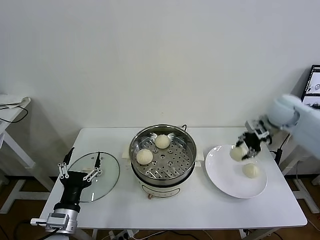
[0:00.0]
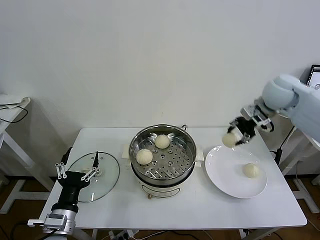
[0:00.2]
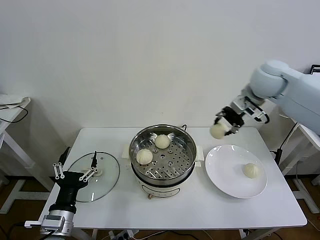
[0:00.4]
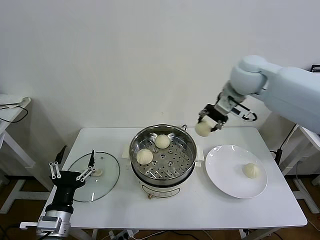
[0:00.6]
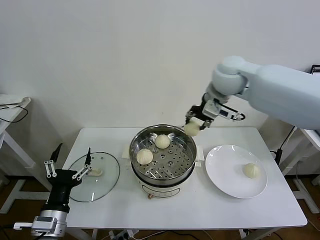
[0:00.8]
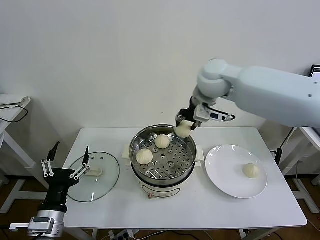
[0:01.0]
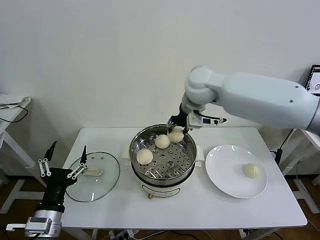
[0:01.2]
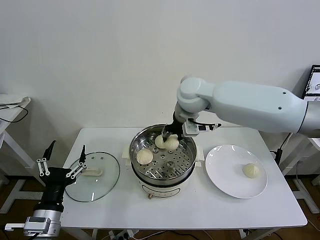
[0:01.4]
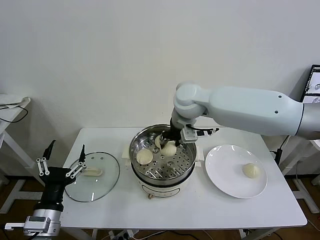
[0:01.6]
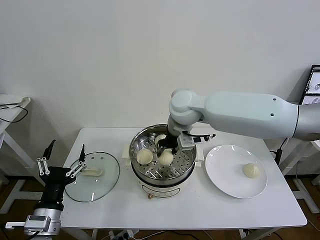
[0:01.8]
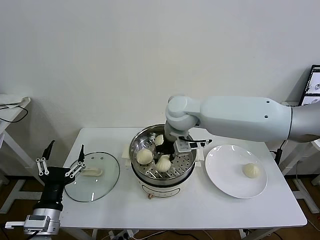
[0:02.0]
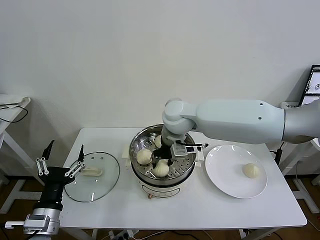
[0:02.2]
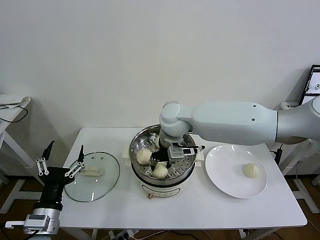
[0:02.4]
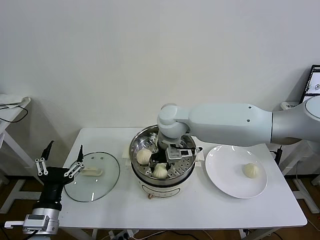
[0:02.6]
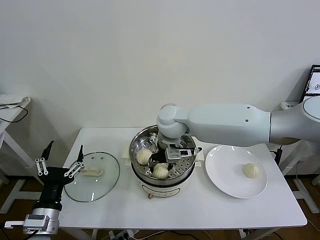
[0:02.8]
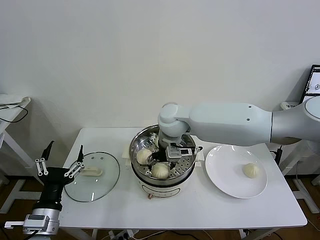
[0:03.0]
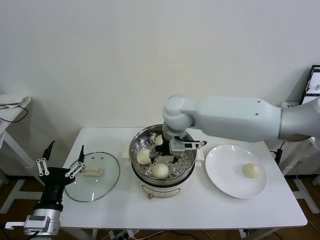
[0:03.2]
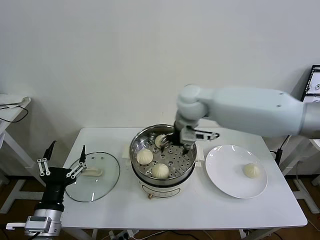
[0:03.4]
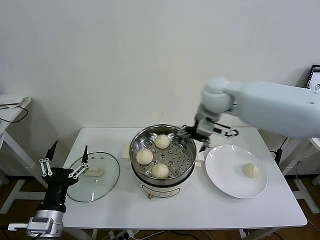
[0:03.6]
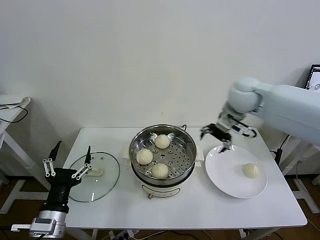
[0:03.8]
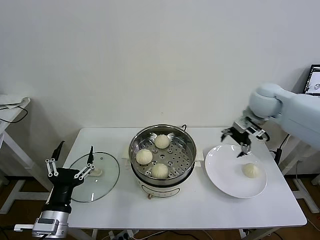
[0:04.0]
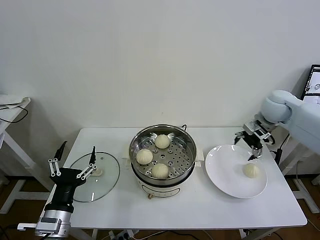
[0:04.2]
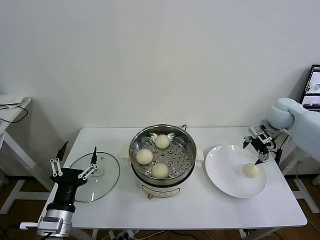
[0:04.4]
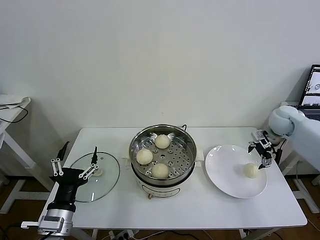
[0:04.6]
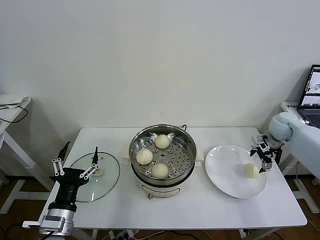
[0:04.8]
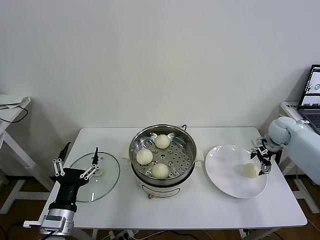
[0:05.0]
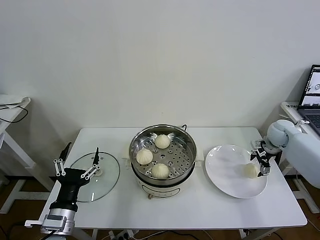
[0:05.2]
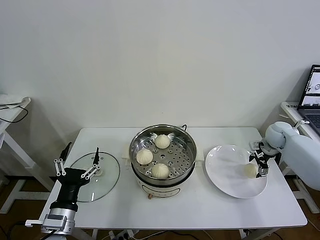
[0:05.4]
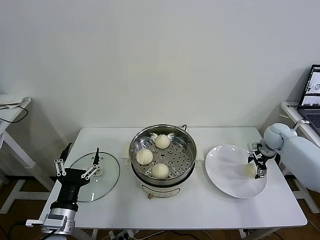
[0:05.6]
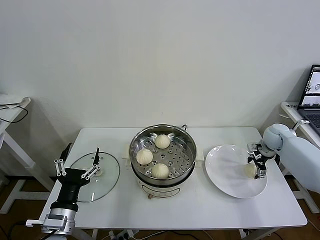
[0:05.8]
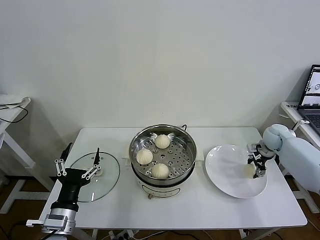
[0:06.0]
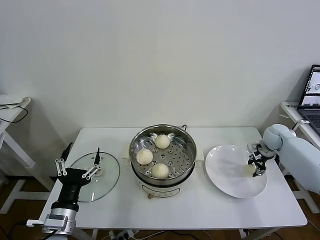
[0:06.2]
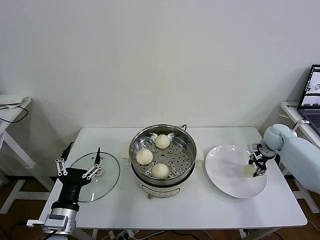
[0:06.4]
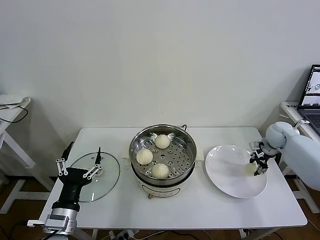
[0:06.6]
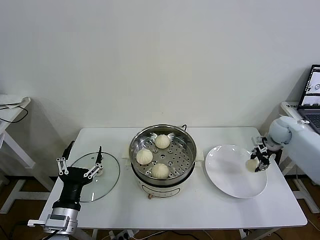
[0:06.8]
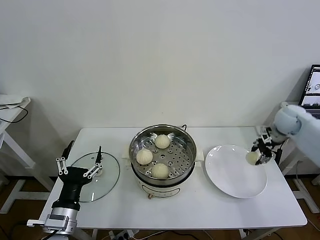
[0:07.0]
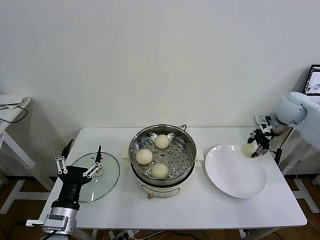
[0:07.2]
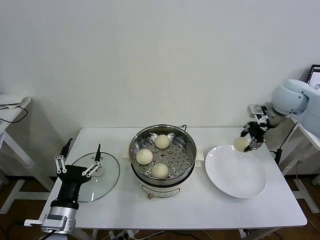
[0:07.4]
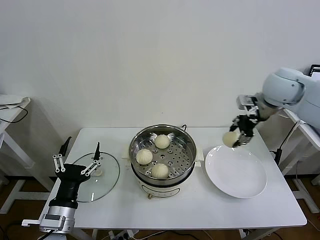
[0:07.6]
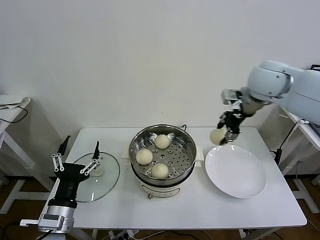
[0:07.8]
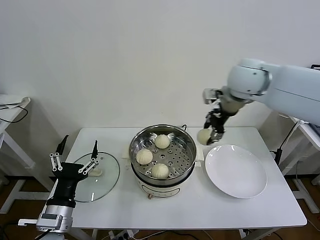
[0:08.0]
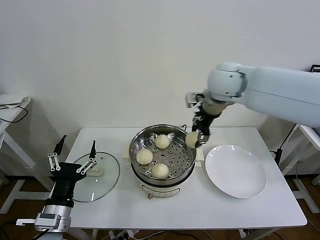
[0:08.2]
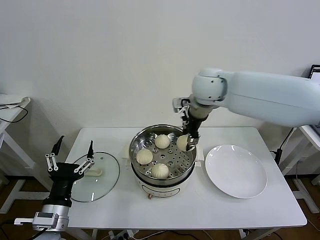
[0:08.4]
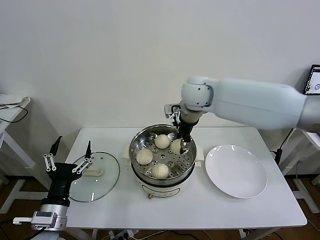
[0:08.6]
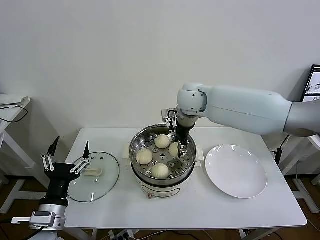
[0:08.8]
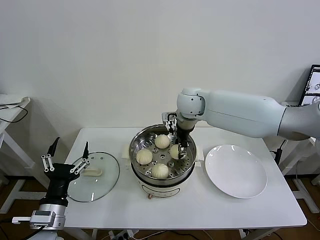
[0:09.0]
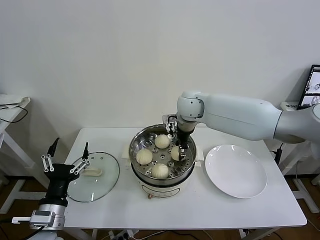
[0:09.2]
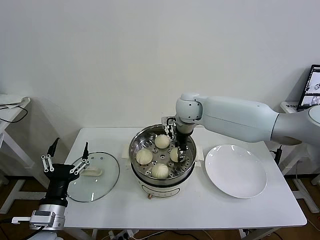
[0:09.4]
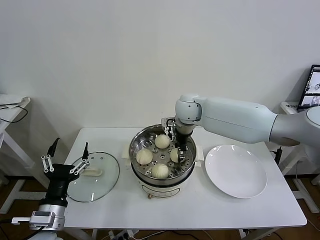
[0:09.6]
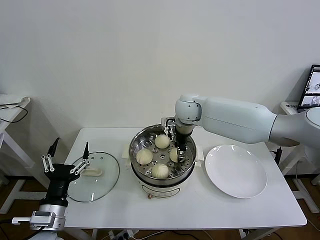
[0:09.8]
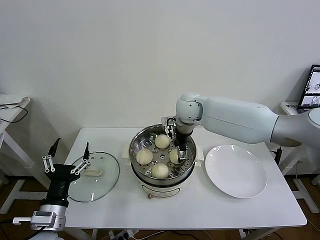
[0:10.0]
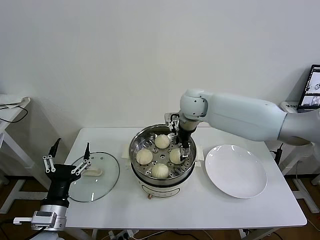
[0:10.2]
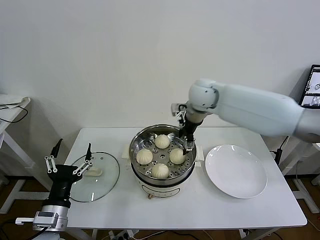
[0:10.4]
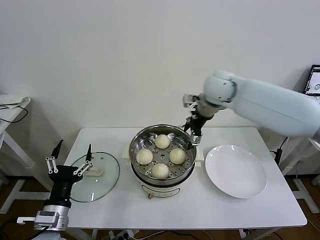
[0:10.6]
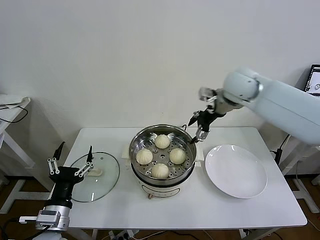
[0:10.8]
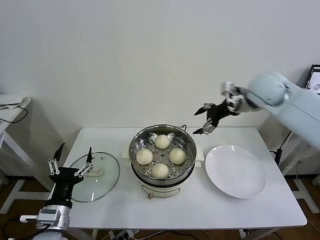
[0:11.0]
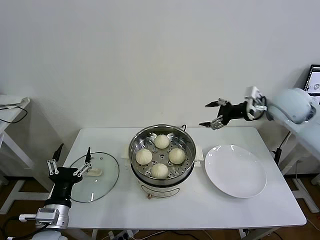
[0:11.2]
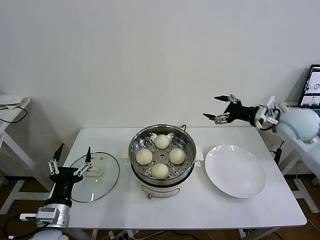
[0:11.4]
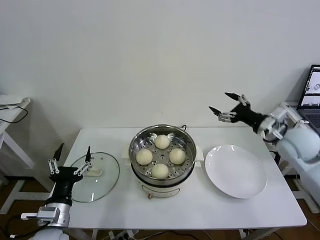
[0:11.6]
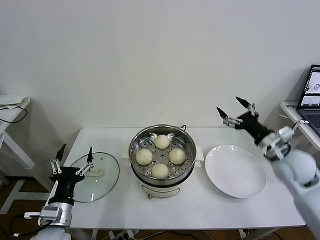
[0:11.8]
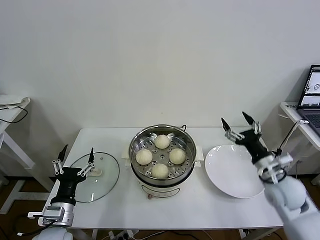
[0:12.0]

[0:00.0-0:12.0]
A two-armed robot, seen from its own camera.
Task of the whole recording: take steamed baozi put them in steamer then cover it.
Step, 0:00.0 to 0:03.0: Place the baozi on the steamer with right gripper.
Step, 0:03.2 to 0:06.2: Grasp the baozi in the plate with right gripper.
Step, 0:06.4 to 0:10.2: Place the baozi on the steamer with right gripper.
0:00.0 to 0:01.6: The right gripper goes approximately 30 cm to the left.
0:01.6 to 0:03.0: The right gripper travels downward by some 5 cm, and opens.
0:03.0 to 0:04.4: The right gripper heads to the right, covering approximately 40 cm.
0:04.4 to 0:06.0: The right gripper goes roughly 10 cm downward, and closes.
0:06.0 to 0:07.6: The right gripper heads upward and to the left, covering roughly 30 cm.
0:07.6 to 0:09.0: The right gripper heads to the left, covering about 25 cm.
0:09.0 to 0:10.4: The right gripper opens.
0:10.4 to 0:12.0: The left gripper moves approximately 5 cm; the right gripper heads backward, to the right and downward, covering roughly 35 cm.

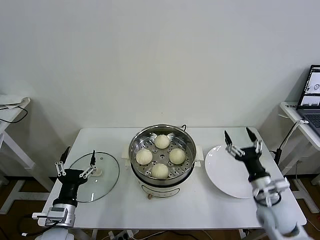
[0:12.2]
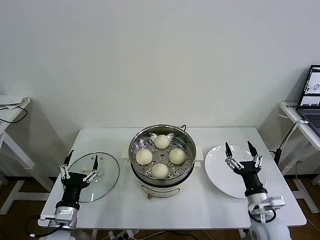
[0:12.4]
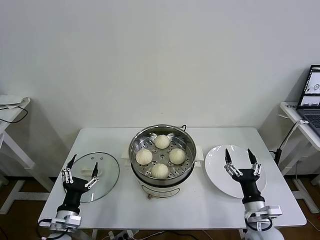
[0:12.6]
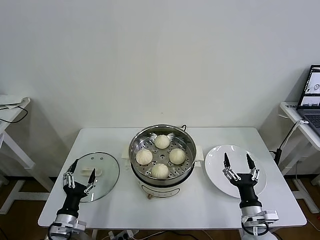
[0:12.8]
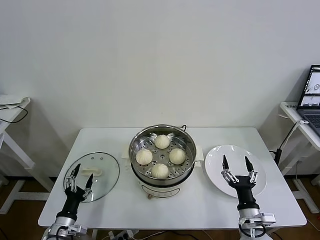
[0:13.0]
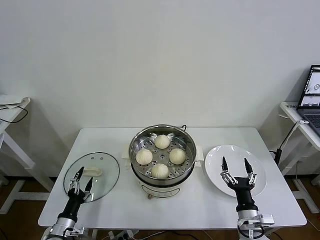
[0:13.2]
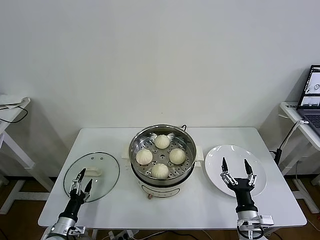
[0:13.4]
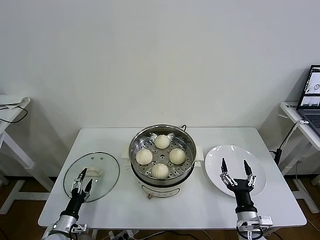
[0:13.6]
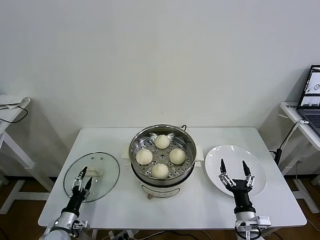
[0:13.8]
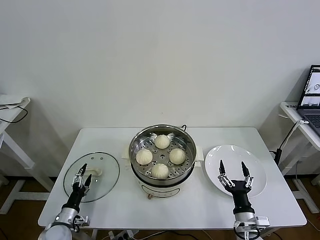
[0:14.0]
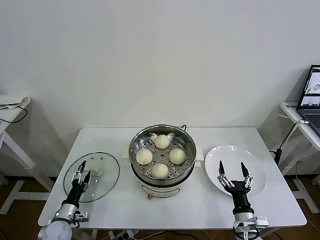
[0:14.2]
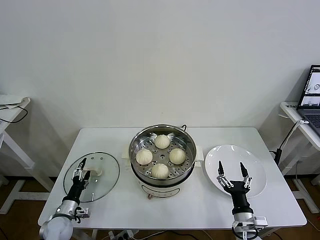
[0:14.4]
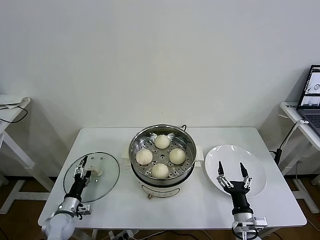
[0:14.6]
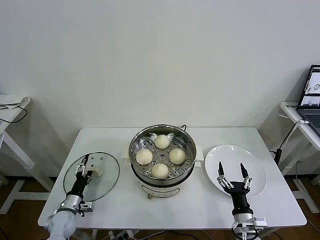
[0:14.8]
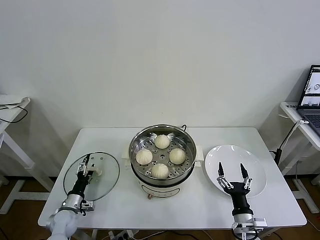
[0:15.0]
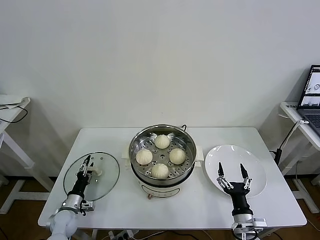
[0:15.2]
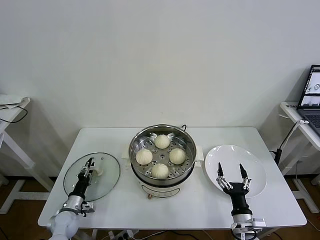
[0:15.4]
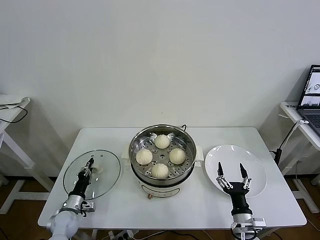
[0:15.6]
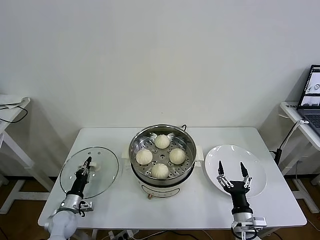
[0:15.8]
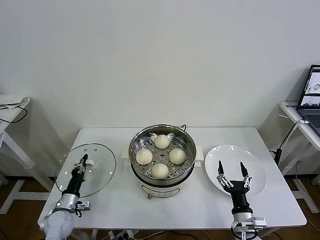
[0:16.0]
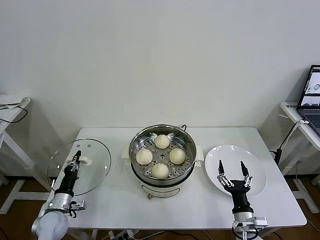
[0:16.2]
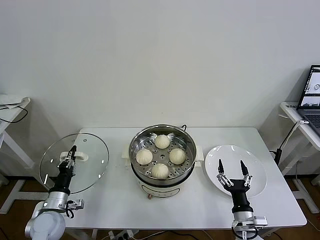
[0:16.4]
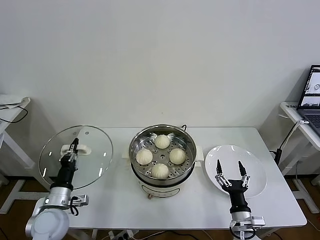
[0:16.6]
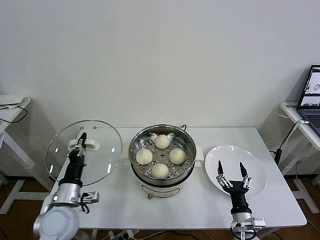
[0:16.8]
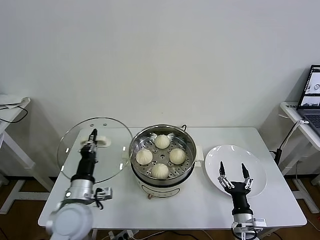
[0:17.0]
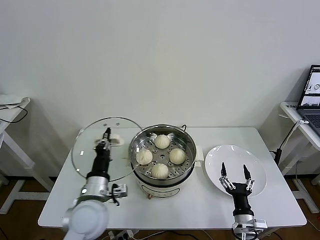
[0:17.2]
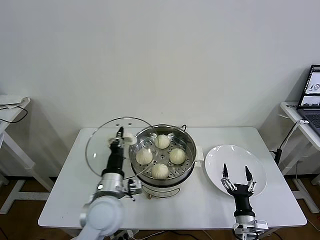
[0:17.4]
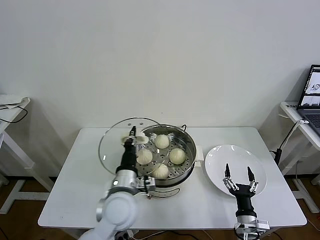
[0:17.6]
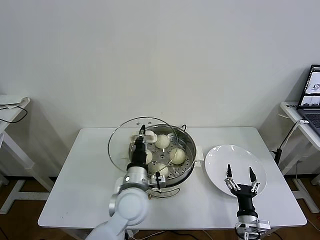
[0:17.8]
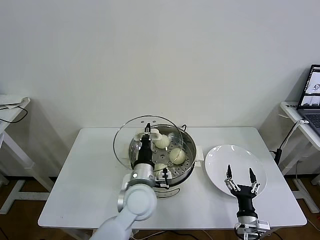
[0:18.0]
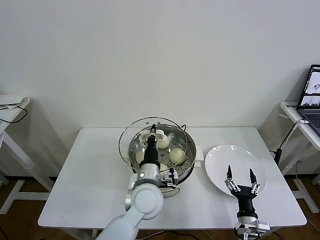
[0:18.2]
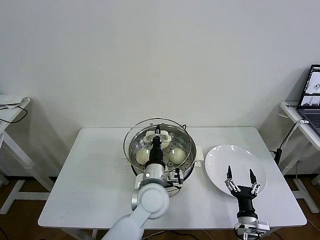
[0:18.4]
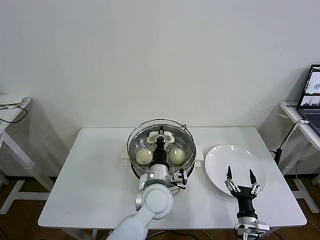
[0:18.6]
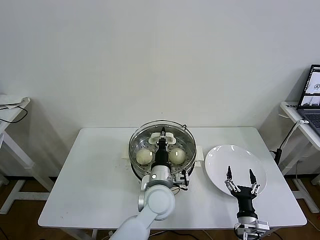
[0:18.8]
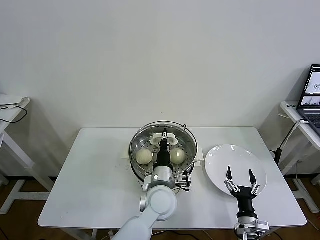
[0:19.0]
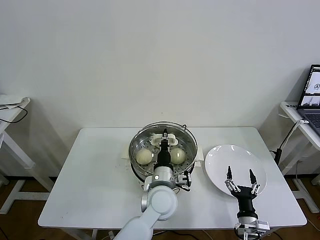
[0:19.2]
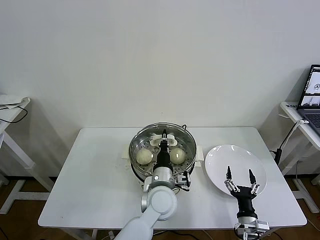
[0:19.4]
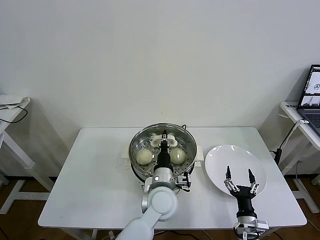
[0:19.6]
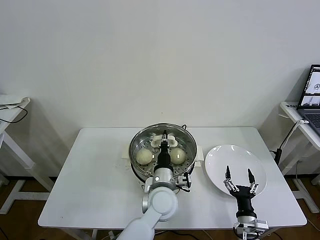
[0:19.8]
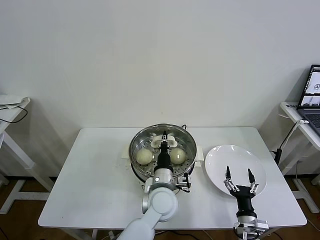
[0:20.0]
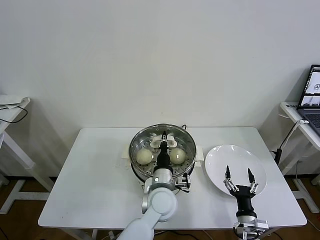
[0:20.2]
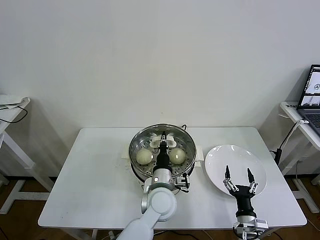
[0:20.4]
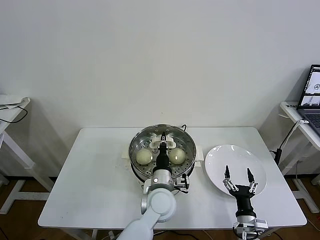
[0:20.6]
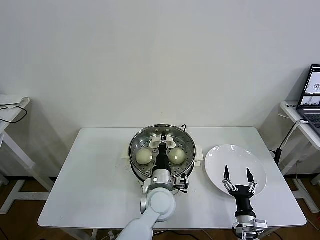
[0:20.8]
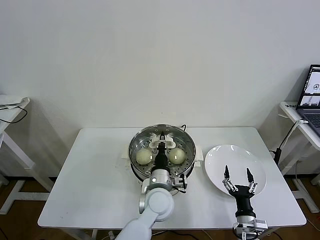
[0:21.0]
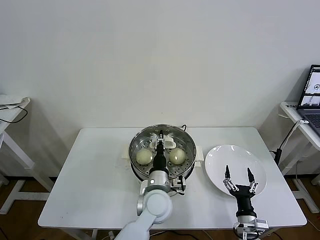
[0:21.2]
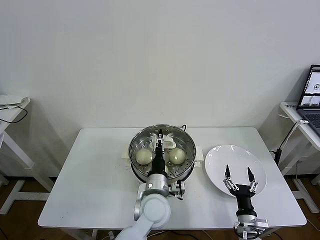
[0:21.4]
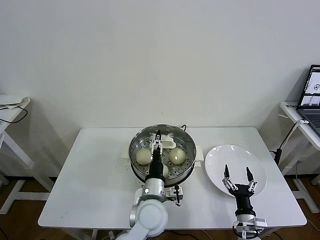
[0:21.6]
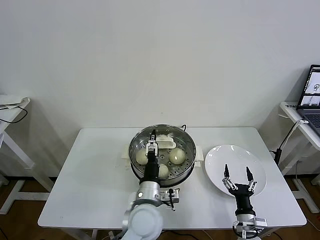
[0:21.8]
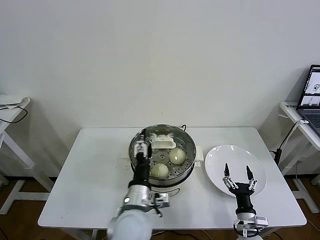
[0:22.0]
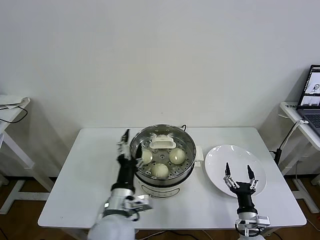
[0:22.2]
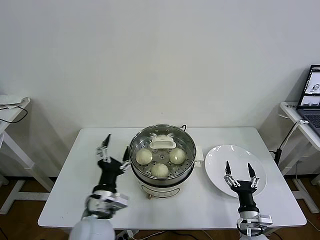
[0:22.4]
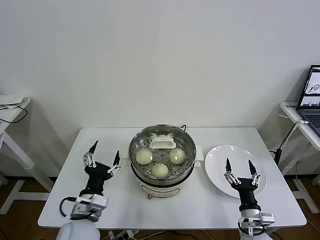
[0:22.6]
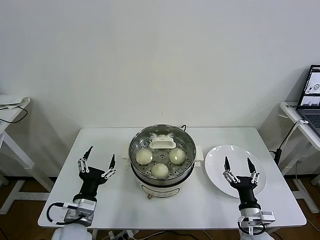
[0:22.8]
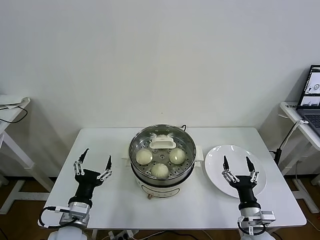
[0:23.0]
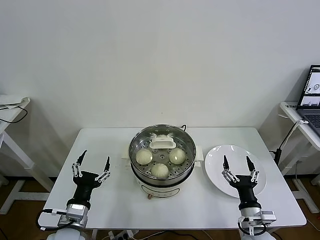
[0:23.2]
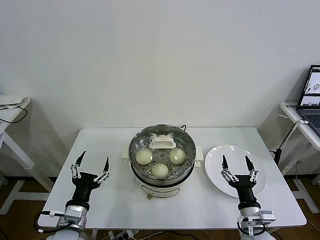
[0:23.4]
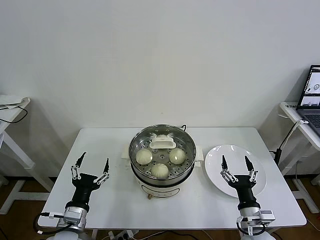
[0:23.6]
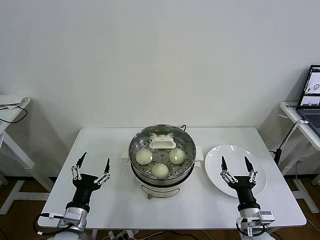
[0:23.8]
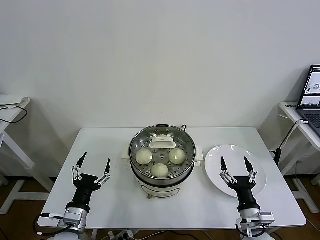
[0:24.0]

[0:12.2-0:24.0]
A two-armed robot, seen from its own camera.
Task of the whole recording: take steamed baozi put them in steamer then cover it.
Step, 0:12.2 to 0:15.8: Grasp the pot lid with left gripper.
Step, 0:16.2 to 0:22.0: Place the pot lid on the steamer with left gripper.
0:12.2 to 0:13.6: The left gripper is displaced downward and to the left by approximately 15 cm. The right gripper is displaced downward, backward and to the left by about 15 cm.
0:13.6 to 0:15.2: The left gripper shifts roughly 10 cm forward.
0:15.2 to 0:16.6: The left gripper heads upward, covering approximately 15 cm, and closes up.
0:16.6 to 0:18.2: The left gripper moves to the right, roughly 30 cm.
0:18.2 to 0:19.6: The left gripper moves roughly 5 cm.
0:19.6 to 0:21.0: The grippers make only small movements.
0:21.0 to 0:22.6: The left gripper is displaced to the left and backward by roughly 20 cm, and opens up.
0:22.6 to 0:24.0: The left gripper moves to the left, about 5 cm.
